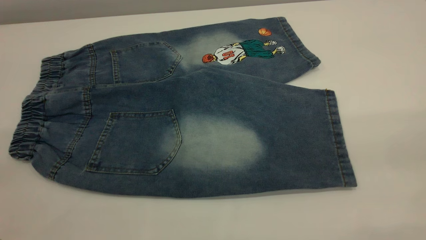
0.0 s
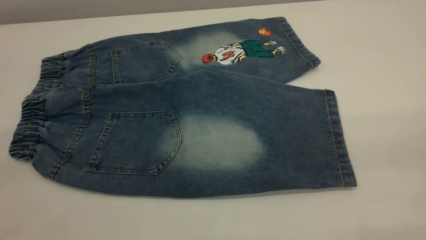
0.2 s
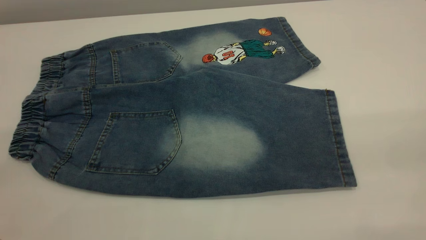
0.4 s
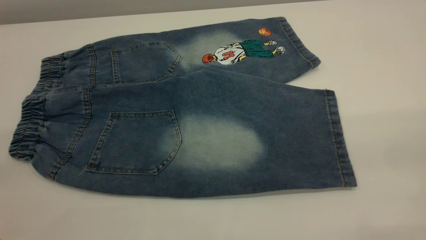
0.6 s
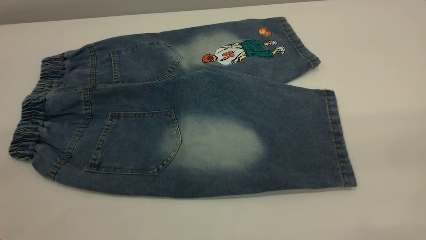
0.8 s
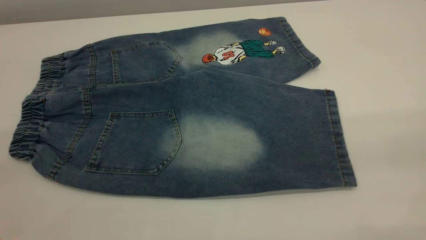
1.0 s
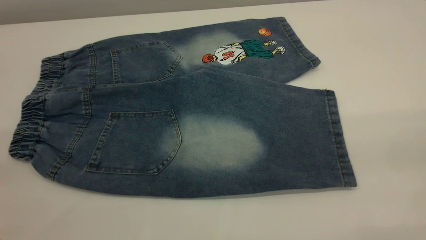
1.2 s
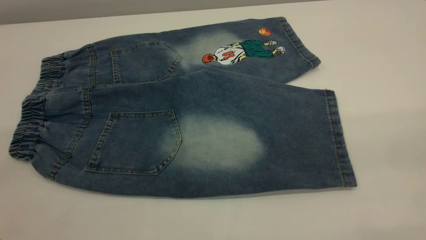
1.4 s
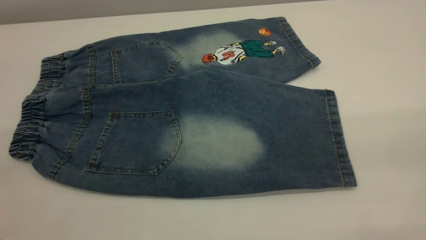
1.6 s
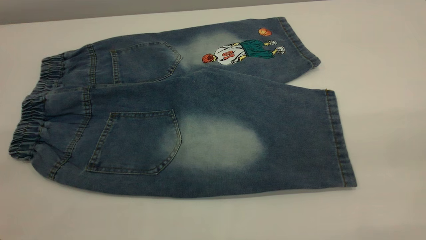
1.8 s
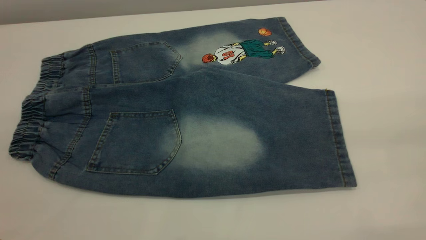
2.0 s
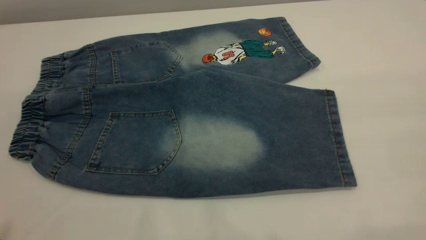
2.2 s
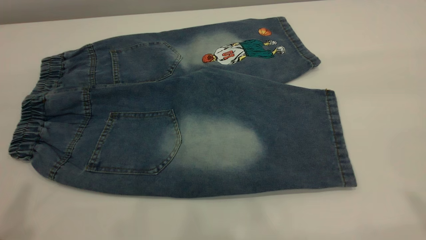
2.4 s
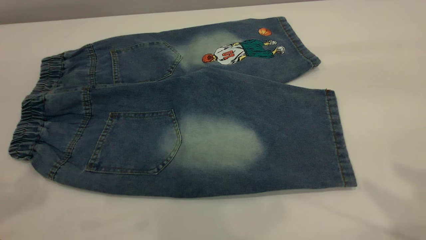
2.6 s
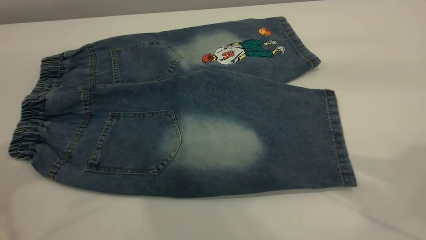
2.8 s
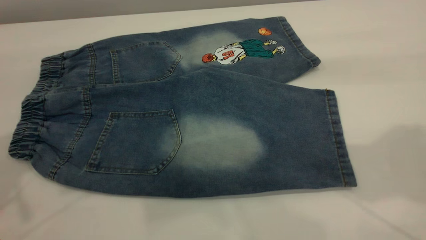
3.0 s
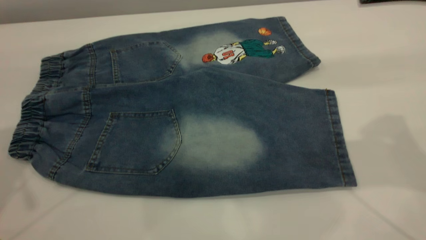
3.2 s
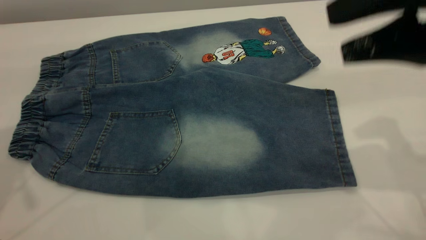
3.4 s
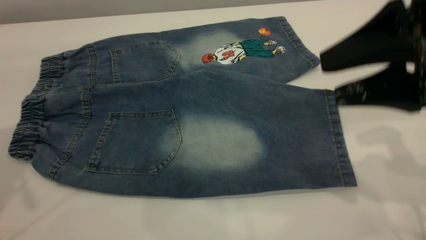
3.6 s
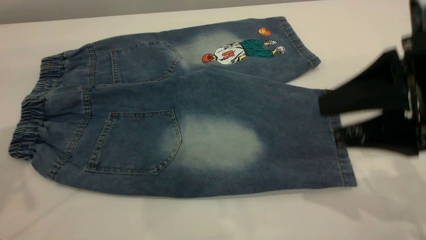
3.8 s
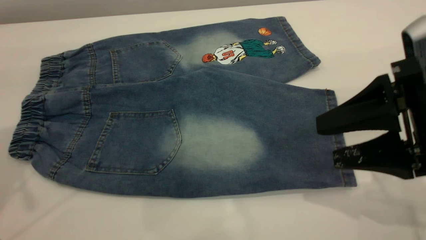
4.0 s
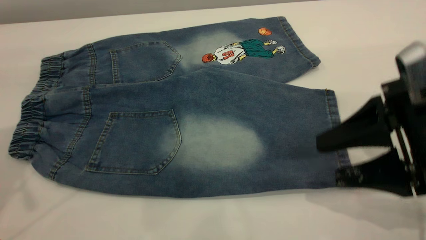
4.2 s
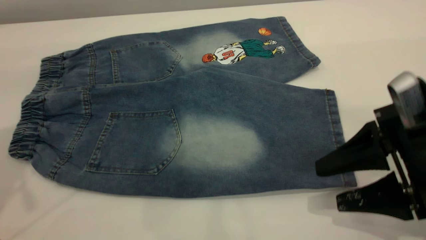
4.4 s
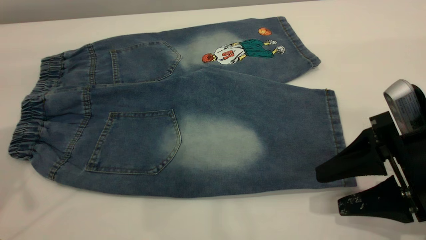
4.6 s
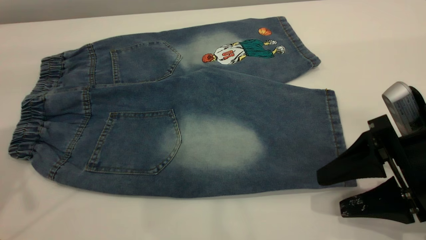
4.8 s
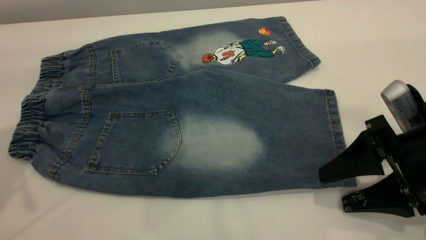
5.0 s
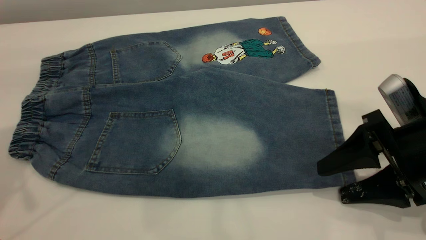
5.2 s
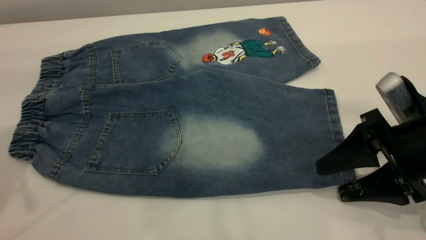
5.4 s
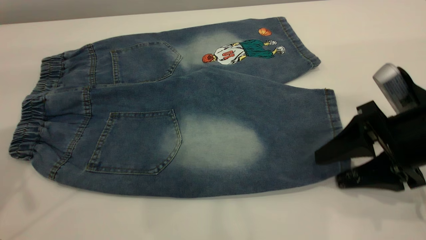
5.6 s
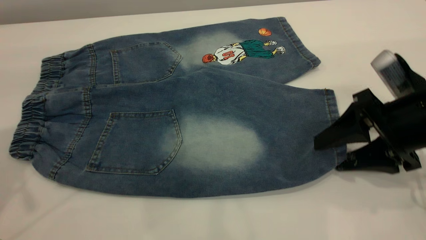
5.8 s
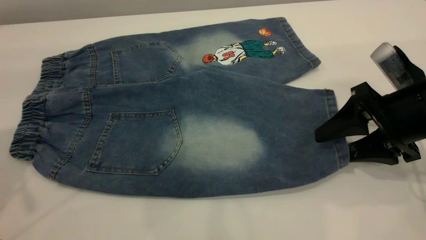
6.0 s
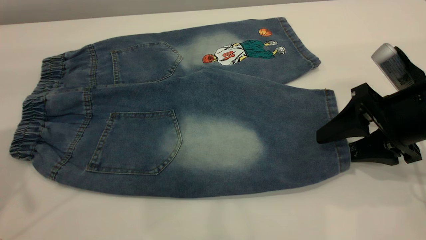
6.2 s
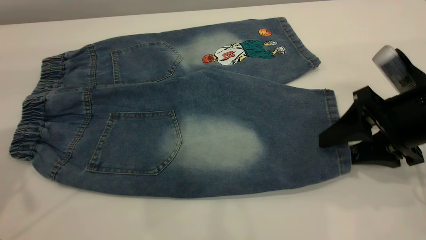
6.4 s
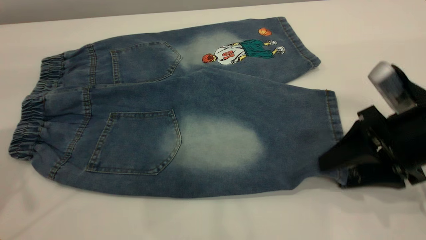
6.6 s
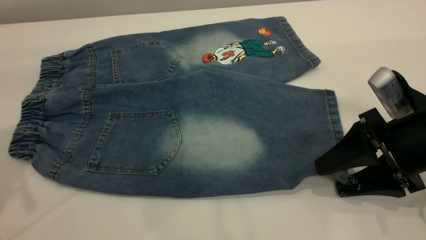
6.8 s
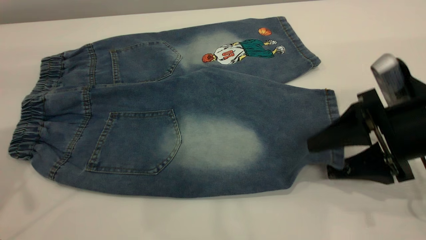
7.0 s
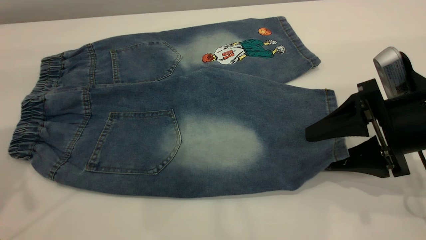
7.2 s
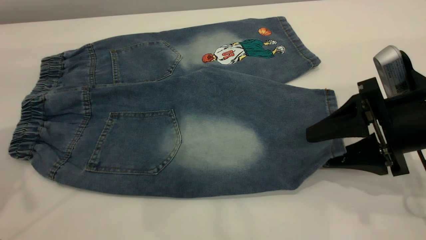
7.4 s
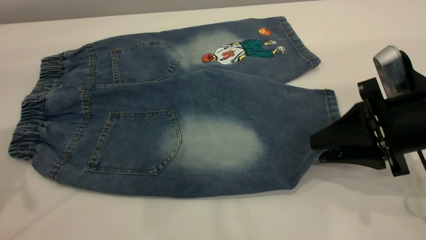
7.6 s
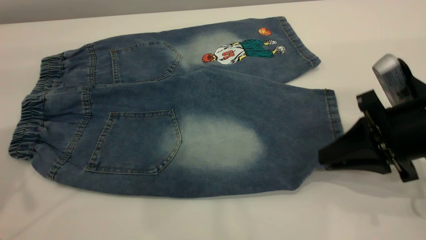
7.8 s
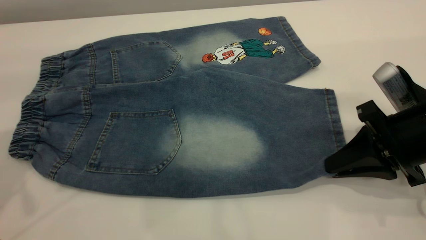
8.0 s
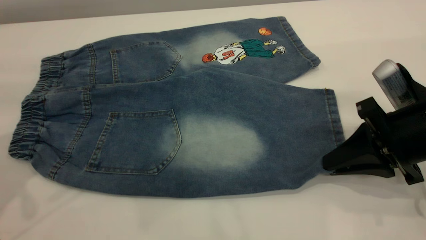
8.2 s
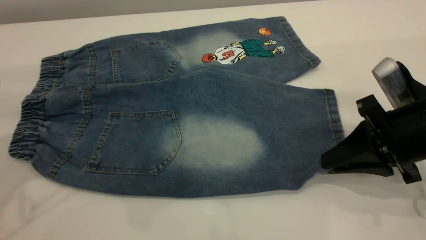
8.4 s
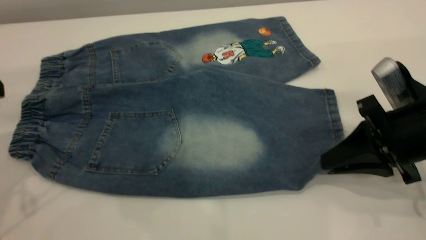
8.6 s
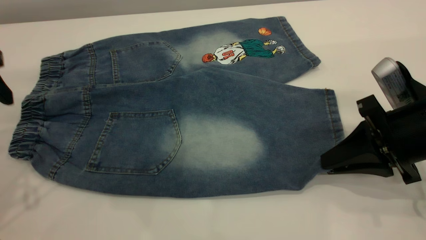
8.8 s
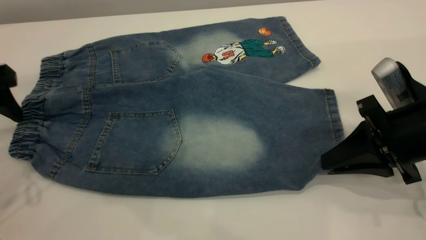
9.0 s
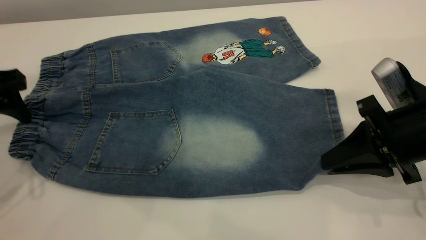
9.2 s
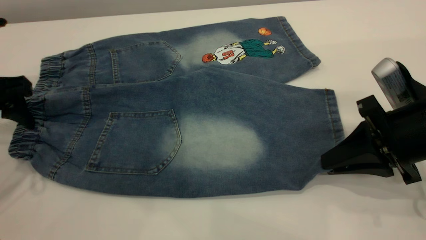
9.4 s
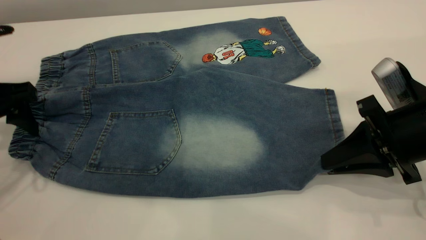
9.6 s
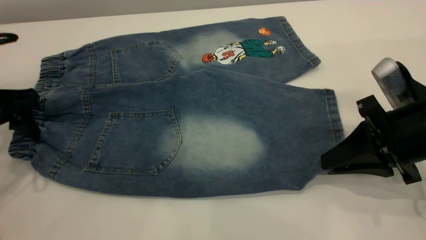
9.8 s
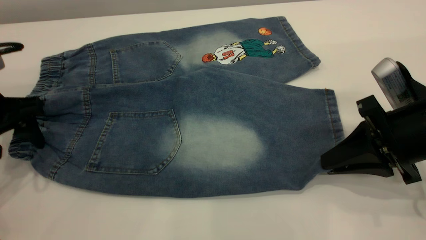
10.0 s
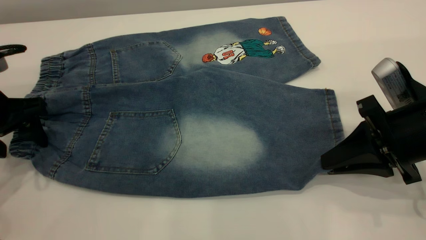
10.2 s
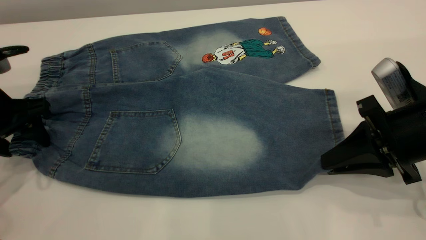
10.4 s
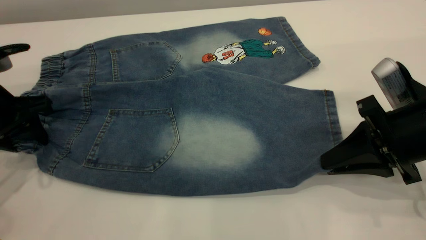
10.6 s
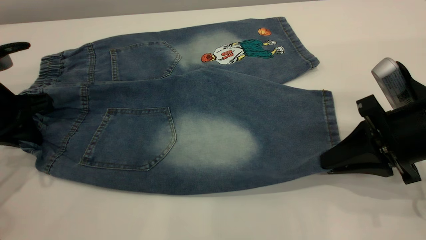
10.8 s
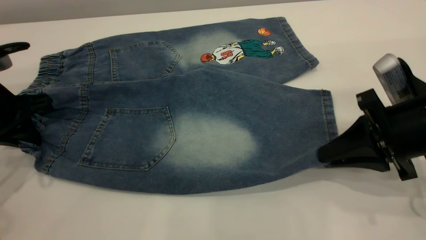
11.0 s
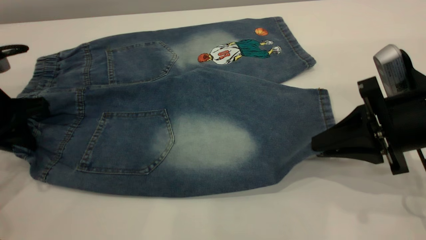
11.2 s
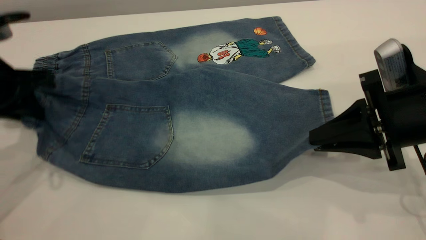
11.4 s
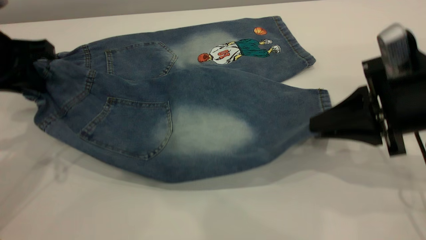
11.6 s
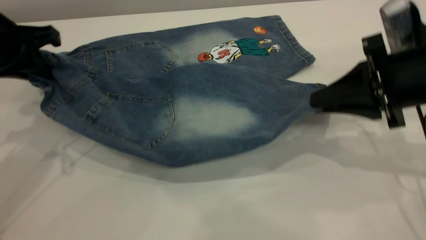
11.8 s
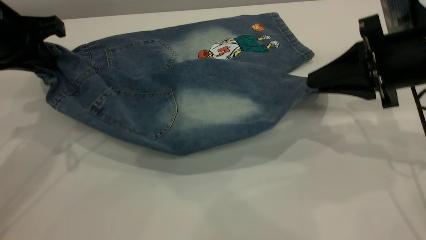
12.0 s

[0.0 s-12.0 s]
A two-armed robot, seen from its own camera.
0.0 to 1.6 s: Neither gripper changes place.
3.0 to 4.4 s: The right gripper goes some 25 cm downward.
4.4 to 6.0 s: The right gripper is displaced forward by about 5 cm.
6.0 to 7.6 s: The right gripper closes.
7.6 to 9.0 s: The left gripper goes some 10 cm downward.
9.0 to 10.4 s: The left gripper shifts some 5 cm downward.
10.4 to 12.0 s: The left gripper shifts approximately 10 cm upward, and closes; the right gripper shifts approximately 10 cm forward and upward.

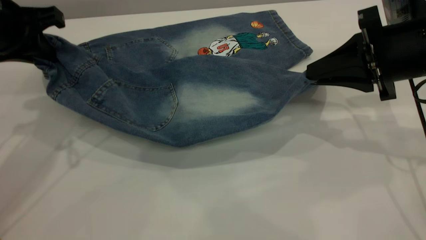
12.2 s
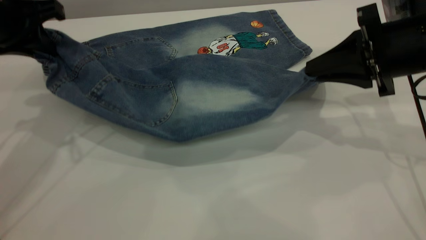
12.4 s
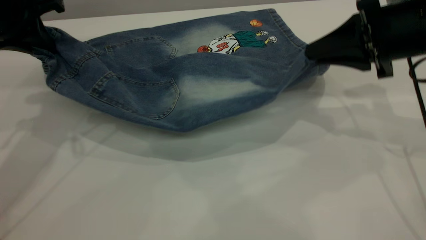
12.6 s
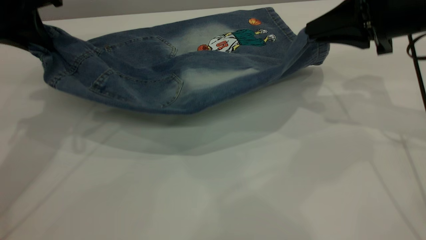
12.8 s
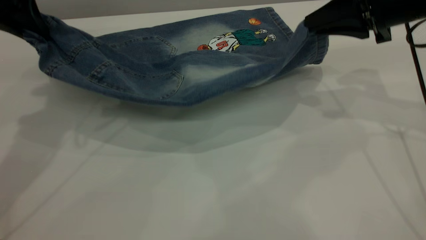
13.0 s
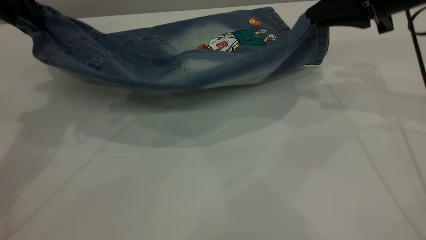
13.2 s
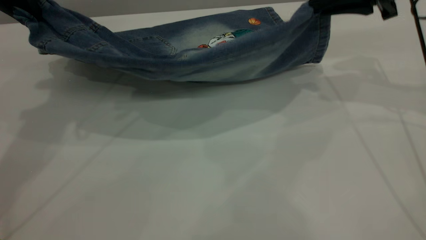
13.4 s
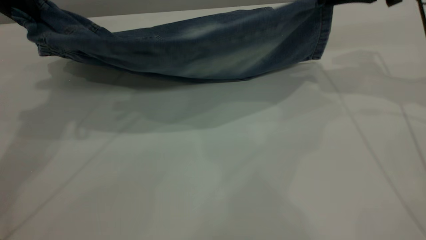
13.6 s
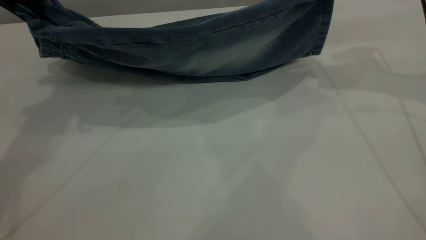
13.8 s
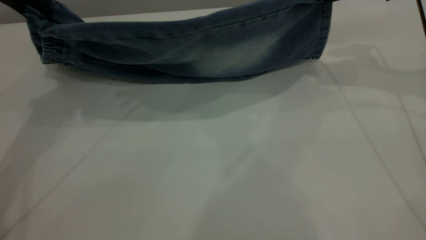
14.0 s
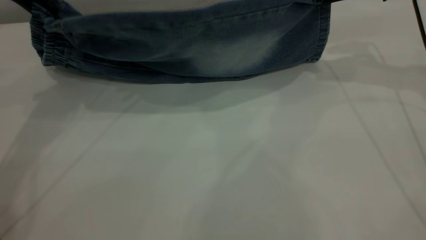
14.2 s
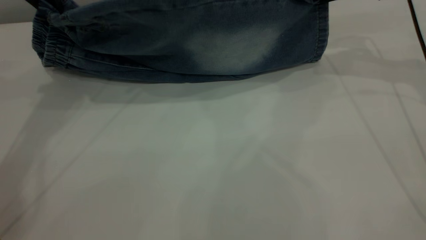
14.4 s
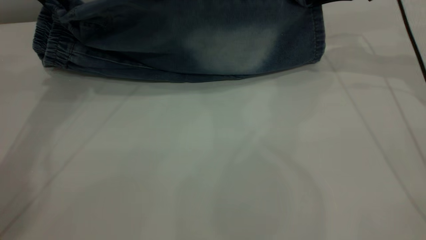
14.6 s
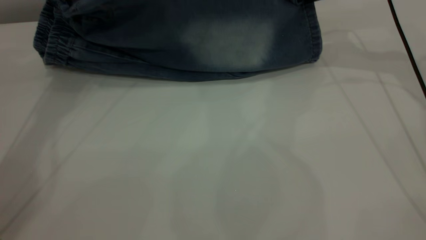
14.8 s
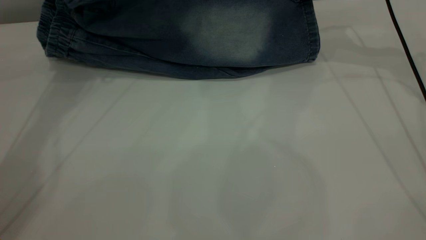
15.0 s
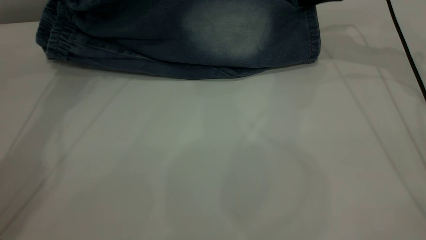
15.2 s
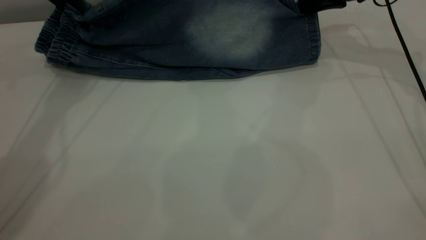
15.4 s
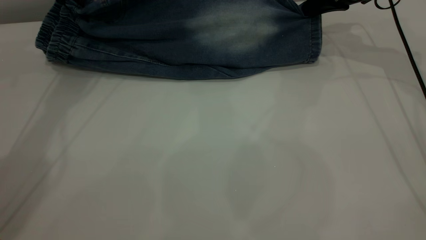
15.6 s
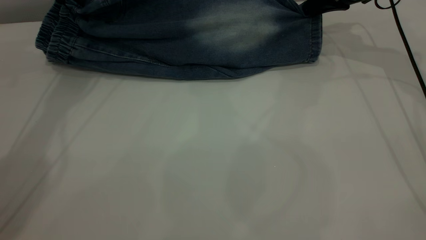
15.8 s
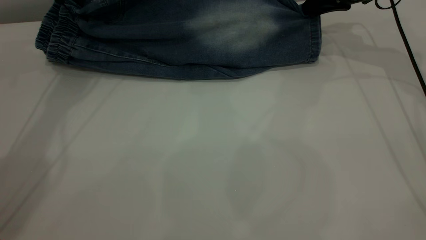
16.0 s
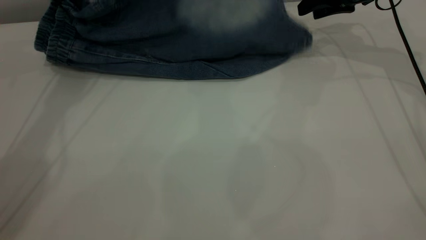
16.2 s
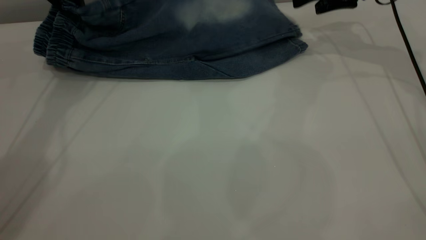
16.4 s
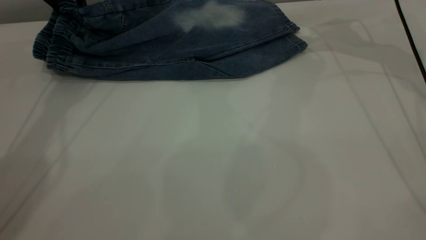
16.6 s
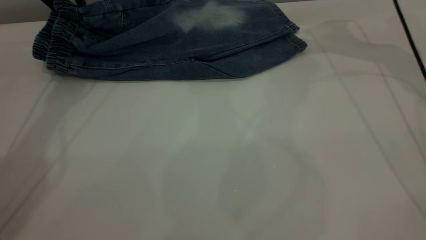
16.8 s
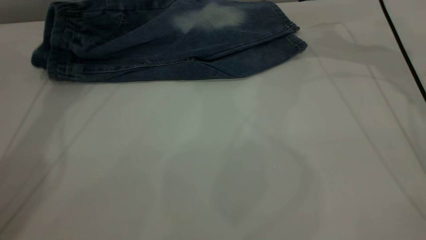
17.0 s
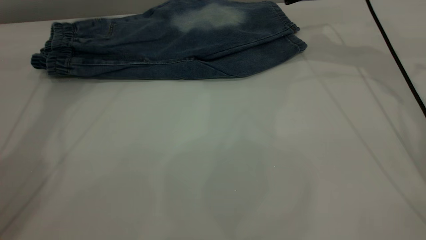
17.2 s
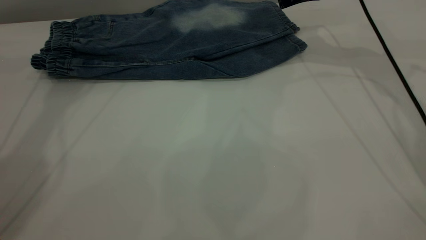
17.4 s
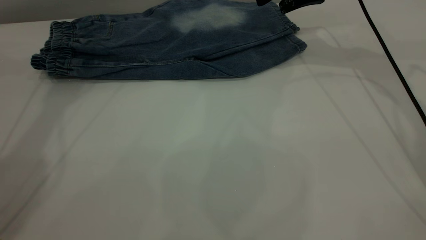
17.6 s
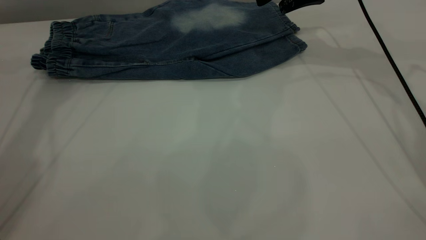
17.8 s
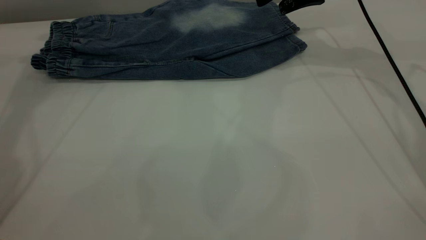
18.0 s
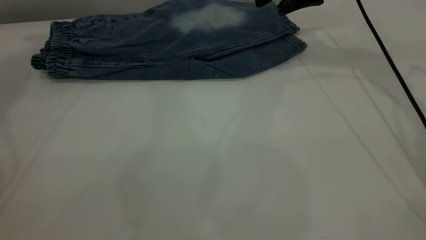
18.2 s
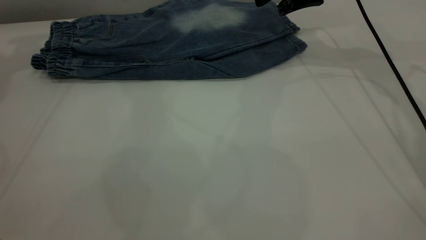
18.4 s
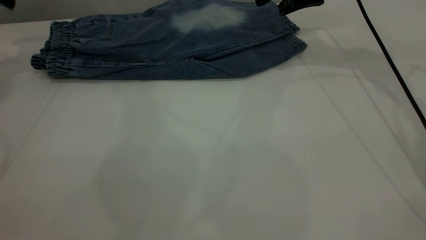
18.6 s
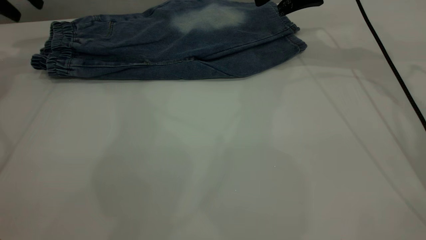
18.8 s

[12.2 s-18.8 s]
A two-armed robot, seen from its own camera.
Step, 12.2 to 17.2 s: Fold the bottom of the pants upward.
12.2 to 13.8 s: The right gripper heads forward and upward, covering roughly 15 cm. The left gripper is displaced upward and forward by approximately 10 cm.
13.8 to 15.4 s: The grippers both shift forward and downward by about 10 cm.
15.4 to 17.2 s: The left gripper travels upward by roughly 5 cm, and opens. Meanwhile the right gripper moves to the left, about 5 cm, and opens up.
17.2 to 18.8 s: The left gripper travels to the left and downward by roughly 15 cm.
